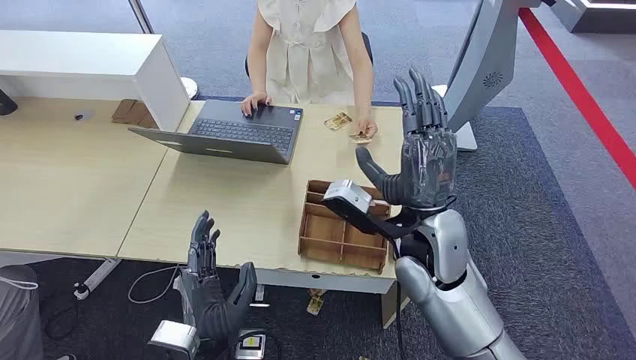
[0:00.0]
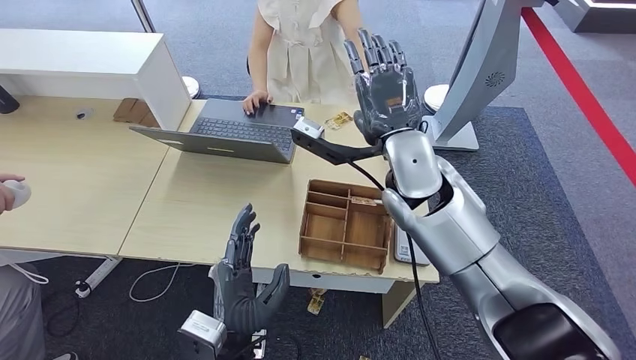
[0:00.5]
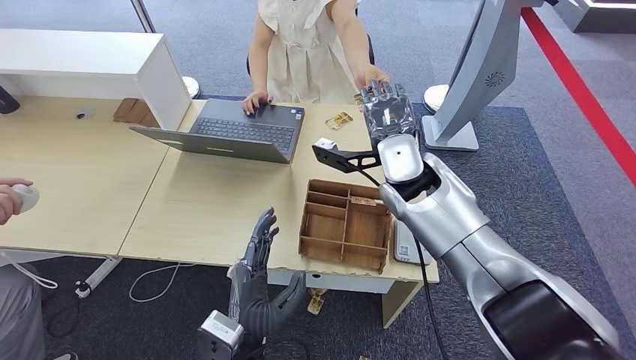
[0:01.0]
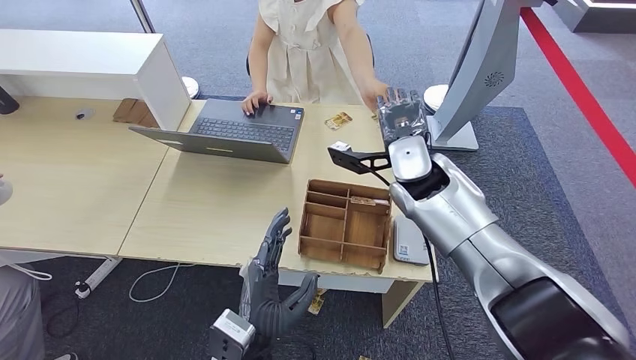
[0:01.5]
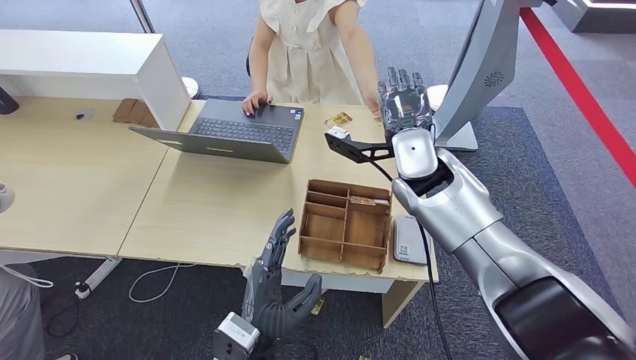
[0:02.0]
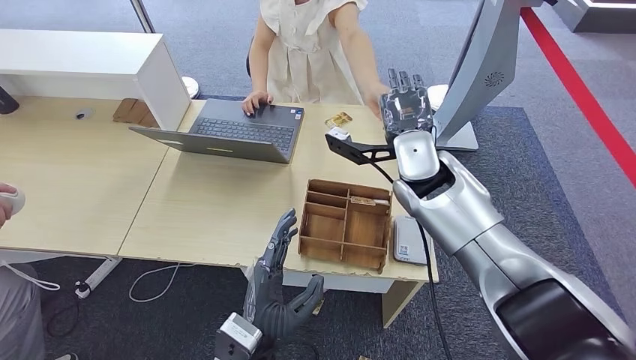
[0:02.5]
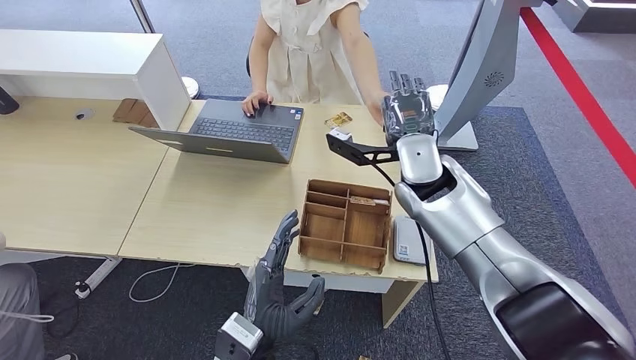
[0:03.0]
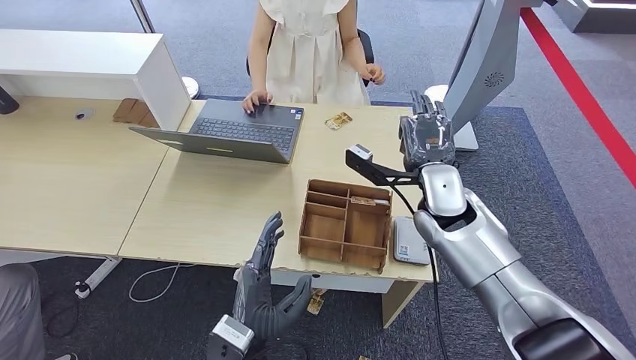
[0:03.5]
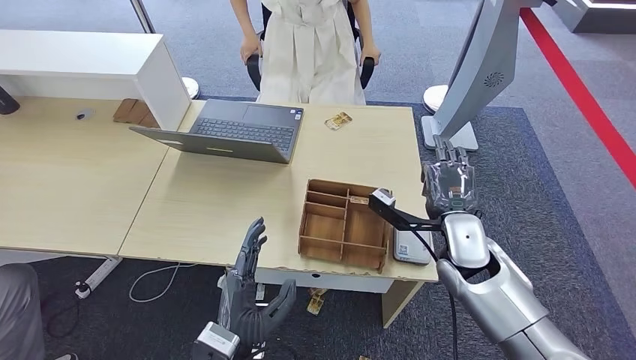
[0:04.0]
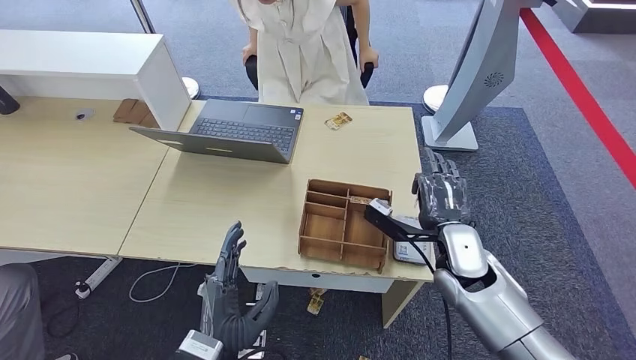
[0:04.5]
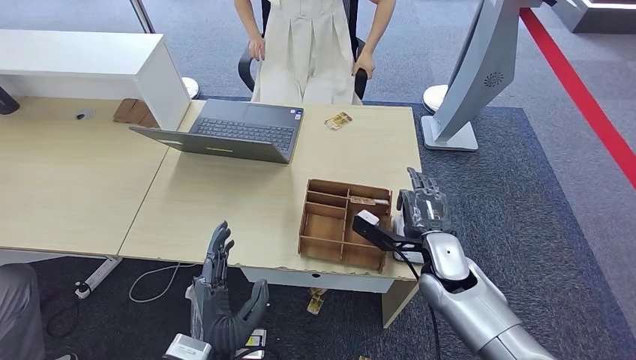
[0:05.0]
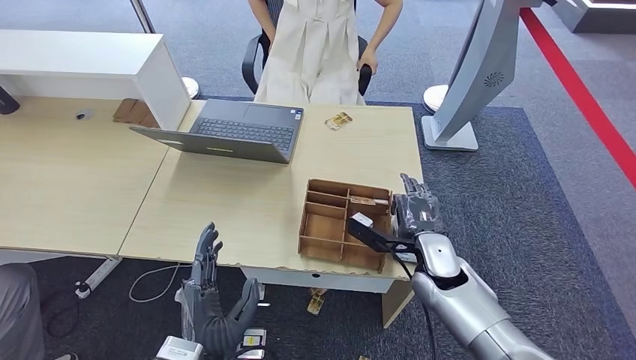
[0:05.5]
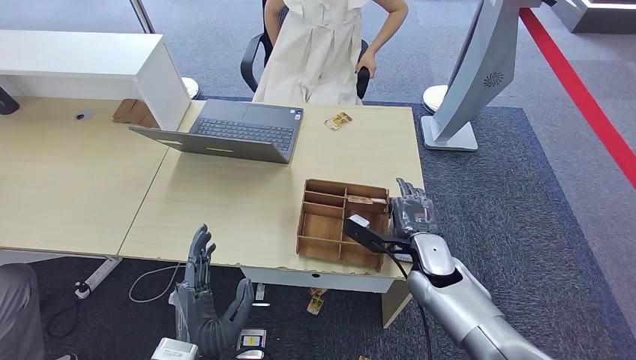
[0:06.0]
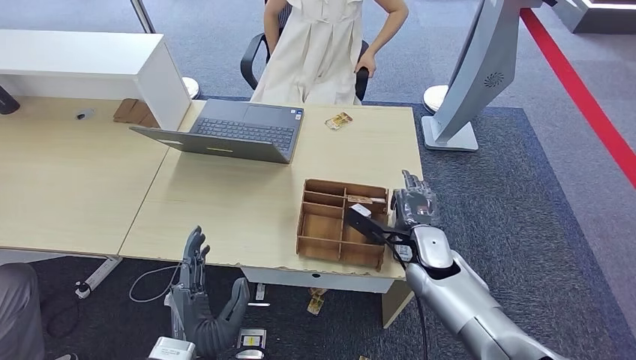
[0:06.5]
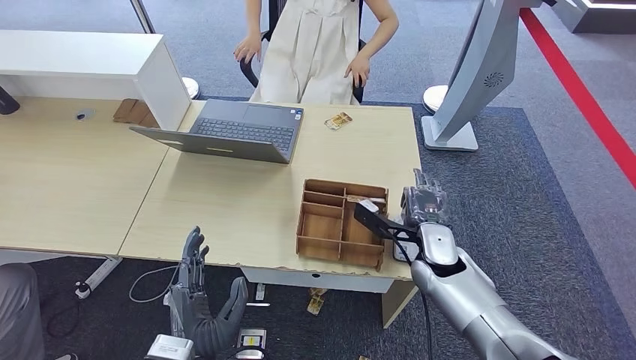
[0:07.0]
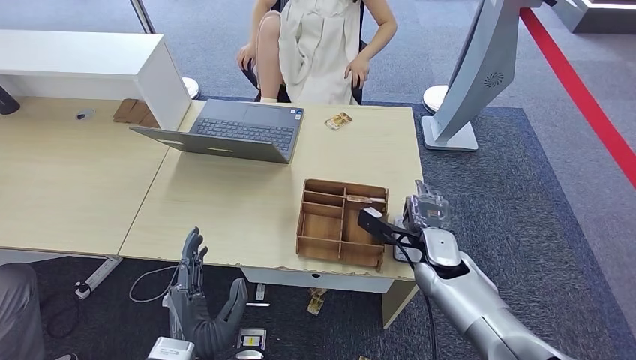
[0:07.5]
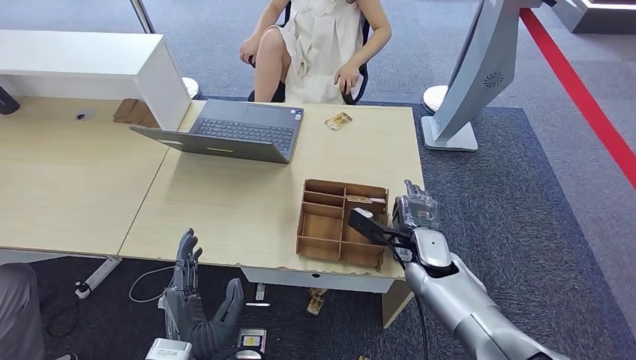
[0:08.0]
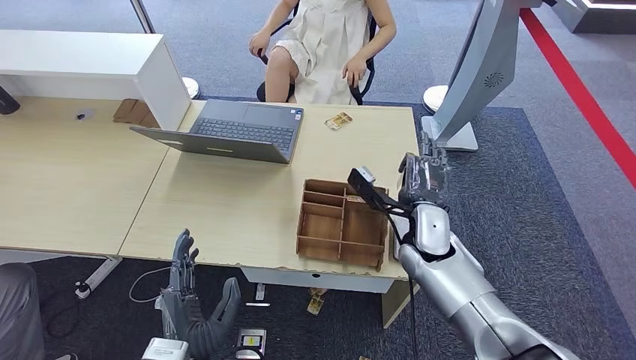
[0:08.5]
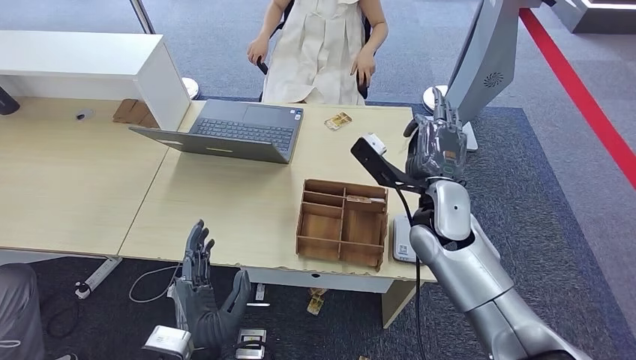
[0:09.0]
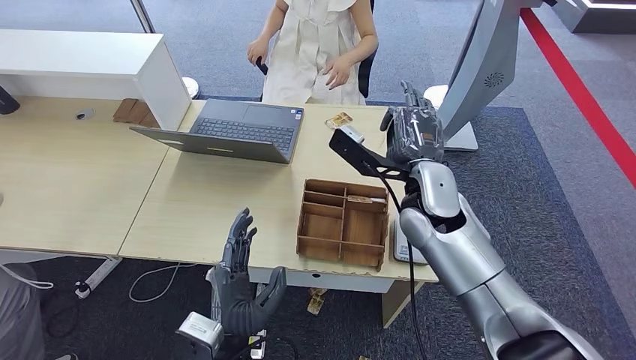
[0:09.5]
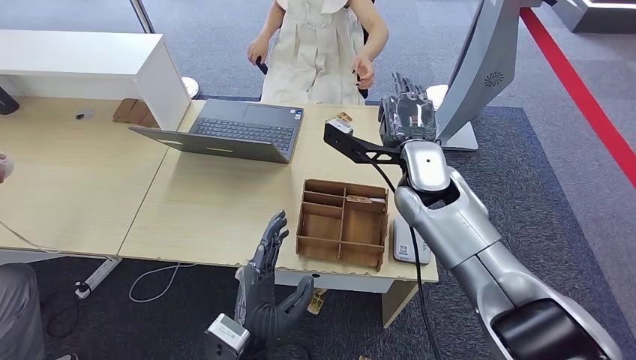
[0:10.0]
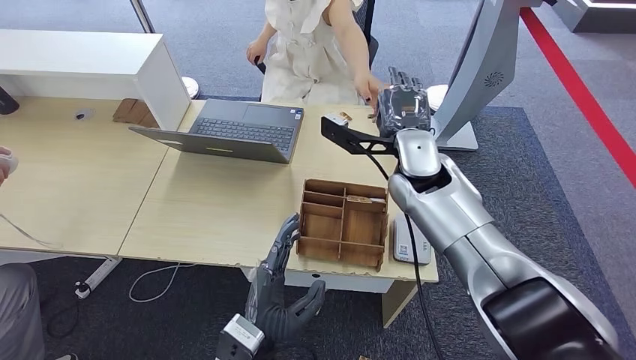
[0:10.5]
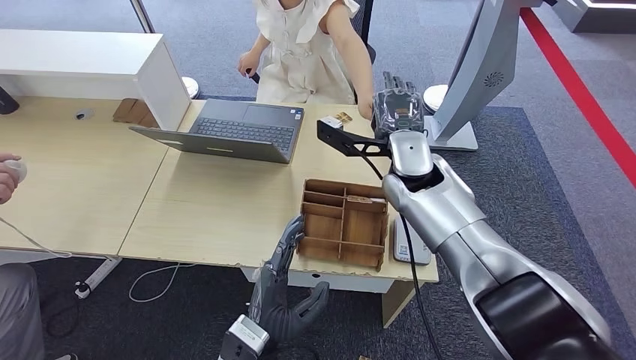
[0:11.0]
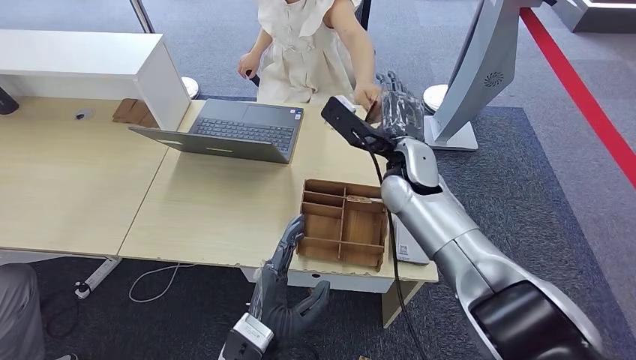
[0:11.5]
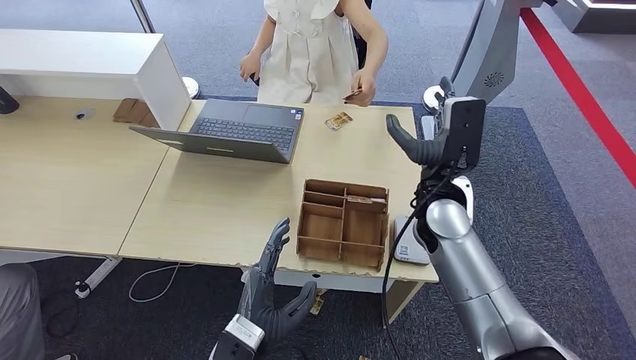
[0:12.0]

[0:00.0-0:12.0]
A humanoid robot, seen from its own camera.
Step, 0:00.0 to 0:03.5: Take the ID card from the person's hand.
Step, 0:04.0 to 0:08.5: Place the ID card on the card reader.
0:02.0 to 0:04.0: The right hand moves downward, backward and to the right, approximately 15 cm.
0:04.0 to 0:06.0: The right hand heads downward, covering roughly 5 cm.
0:06.0 to 0:08.0: The hands stay close to where they were, moving slightly.
0:08.0 to 0:10.0: The left hand travels to the right by roughly 5 cm, while the right hand travels upward by roughly 15 cm.

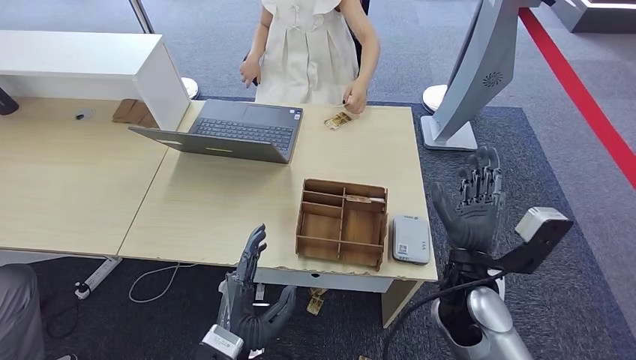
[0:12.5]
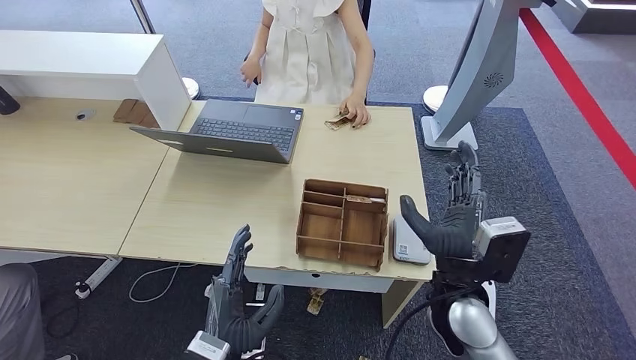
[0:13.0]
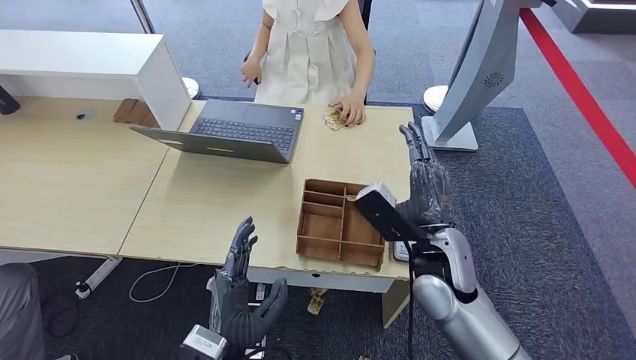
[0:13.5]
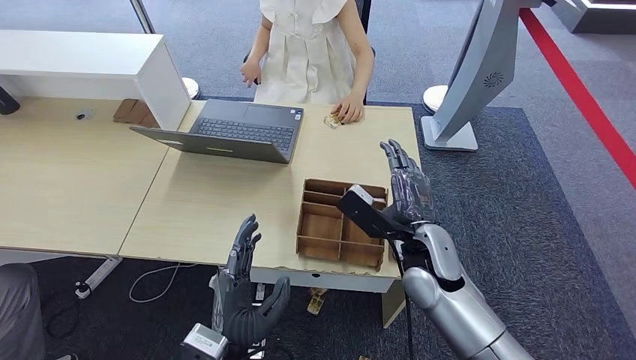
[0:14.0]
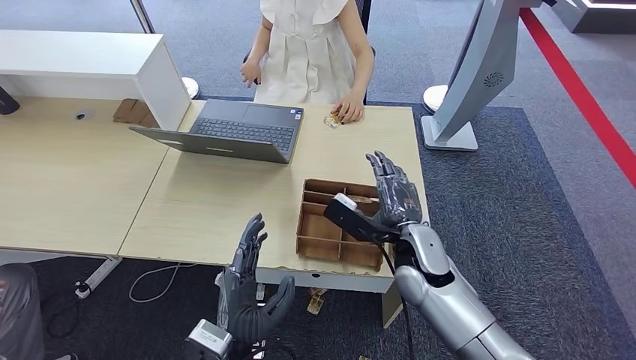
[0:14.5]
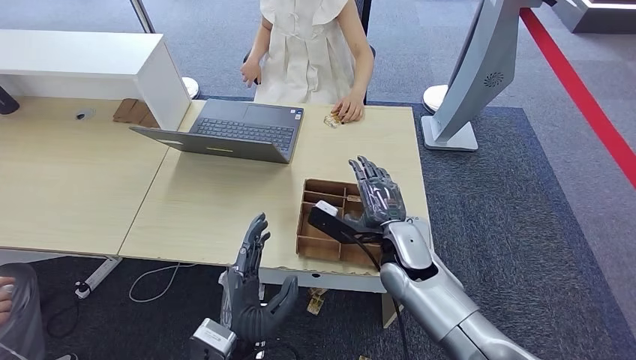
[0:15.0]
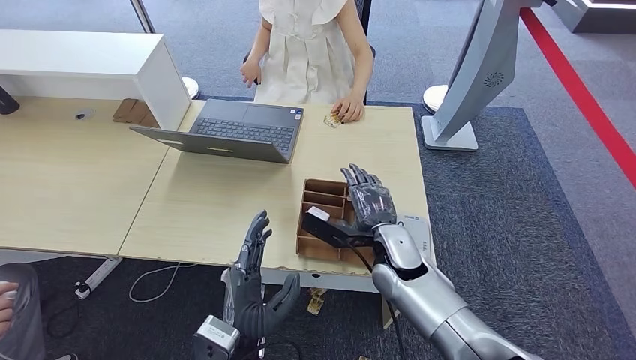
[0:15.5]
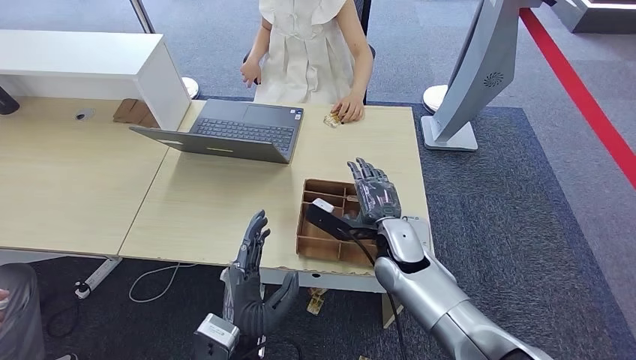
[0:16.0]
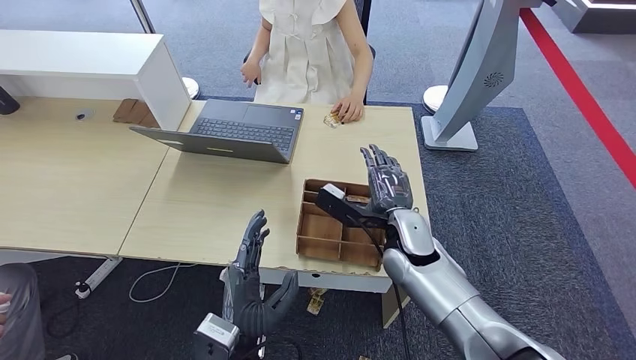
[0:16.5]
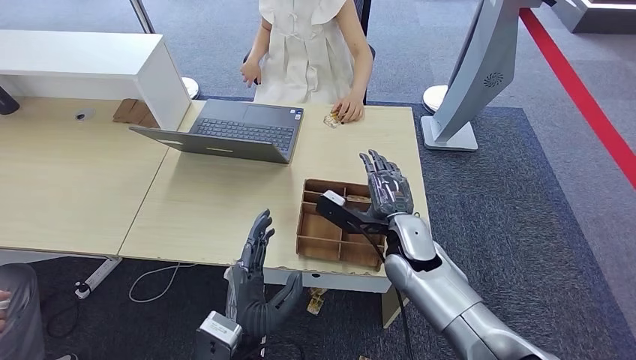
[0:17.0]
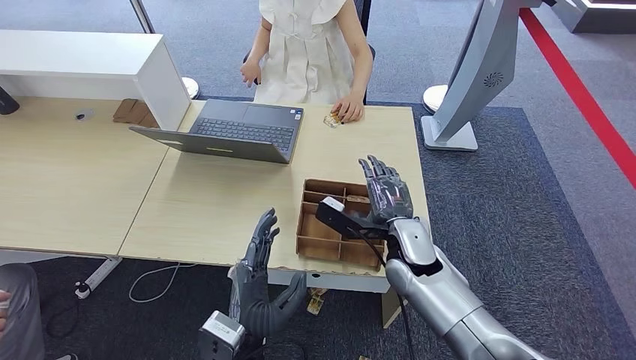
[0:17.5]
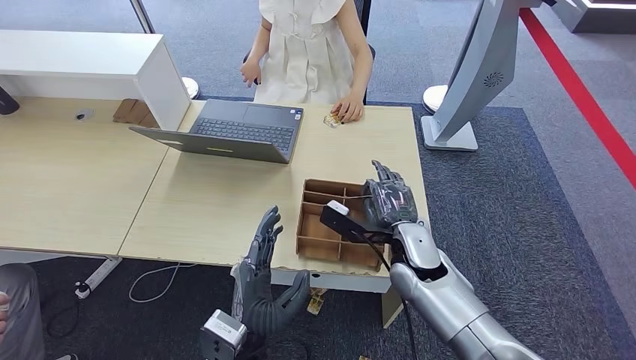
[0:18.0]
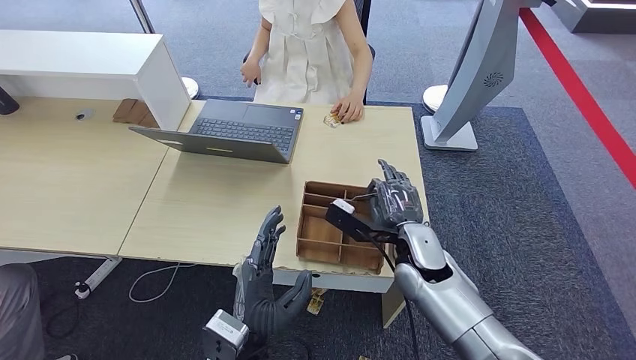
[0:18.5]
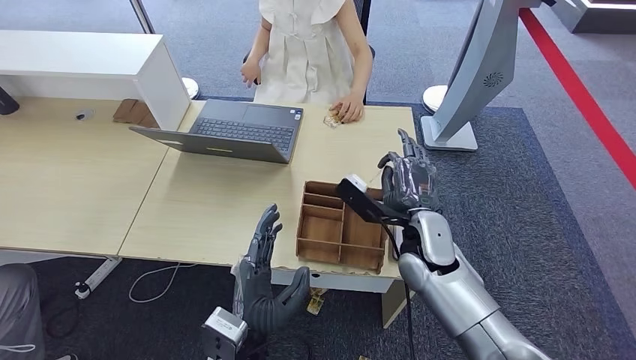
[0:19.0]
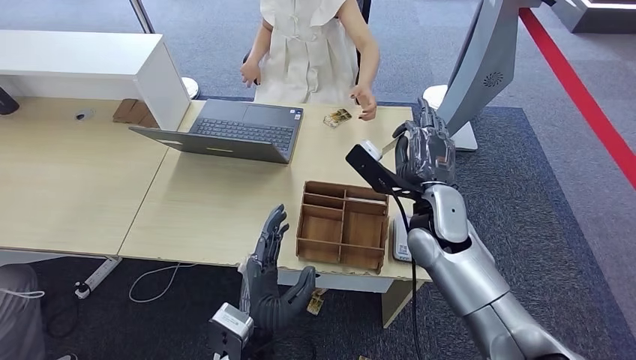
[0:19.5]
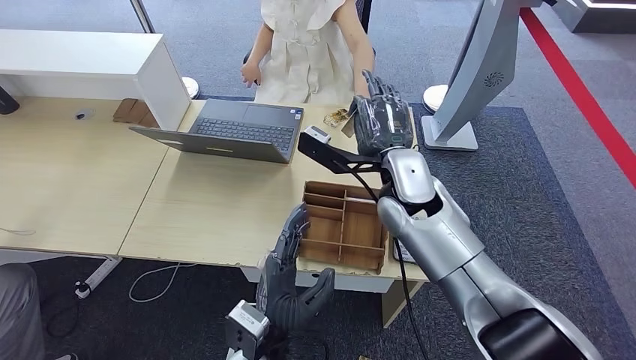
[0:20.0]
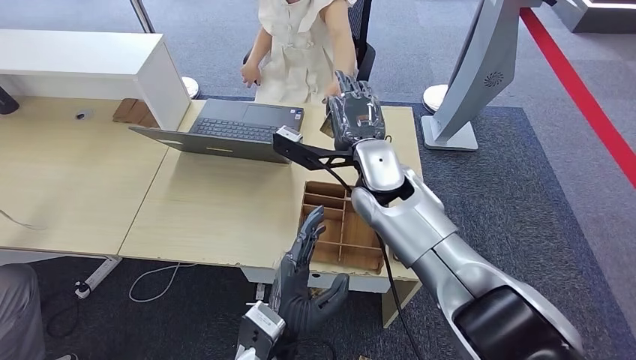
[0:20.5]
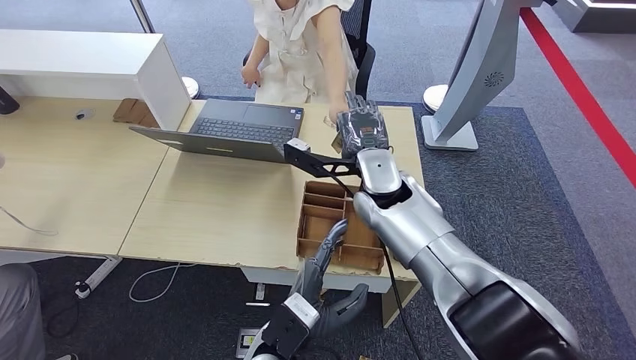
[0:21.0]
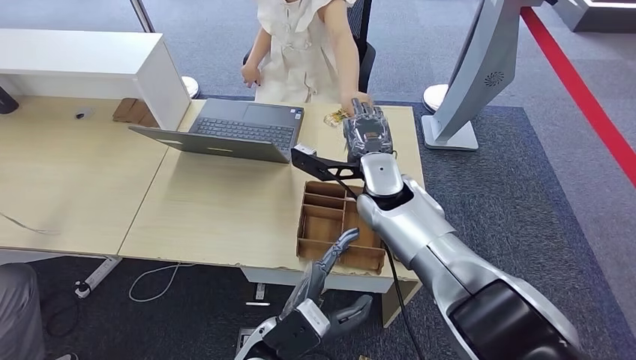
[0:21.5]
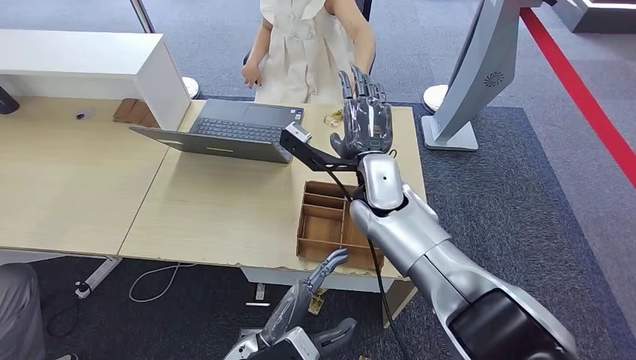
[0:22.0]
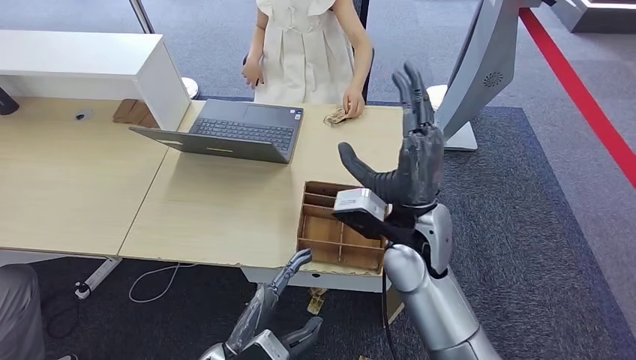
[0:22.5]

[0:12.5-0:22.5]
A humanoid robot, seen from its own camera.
Step, 0:18.0 to 0:19.5: Pick up the room key from the key card box.
Step, 0:20.0 to 0:22.5: Hand the room key to the person.
0:12.5 to 0:14.5: The right hand shifts about 5 cm forward.
0:14.5 to 0:18.5: The hands stay close to where they were, moving slightly.
0:18.5 to 0:20.5: The right hand shifts approximately 15 cm upward, to the left and forward.
0:20.5 to 0:22.5: The left hand goes roughly 10 cm to the left. The right hand moves backward, about 10 cm.
